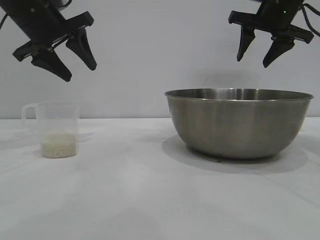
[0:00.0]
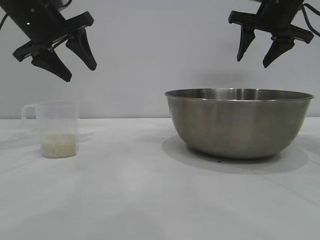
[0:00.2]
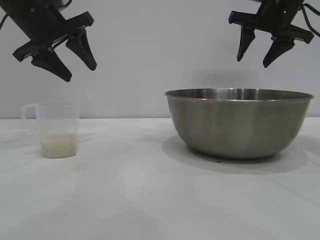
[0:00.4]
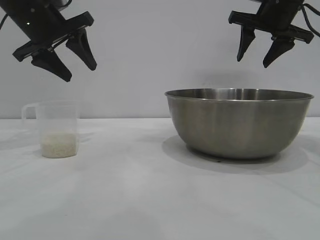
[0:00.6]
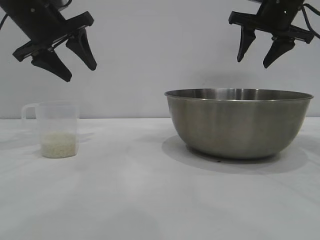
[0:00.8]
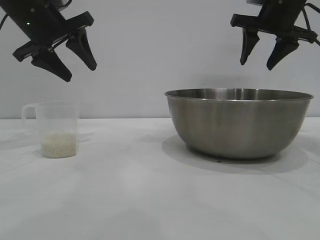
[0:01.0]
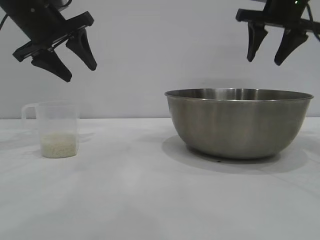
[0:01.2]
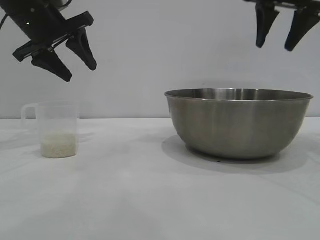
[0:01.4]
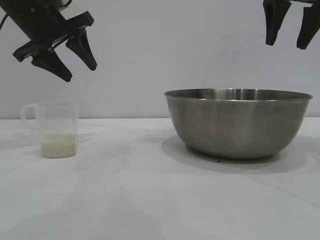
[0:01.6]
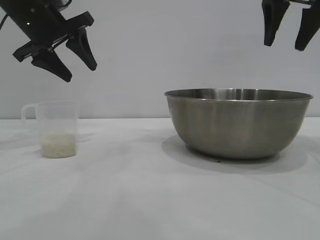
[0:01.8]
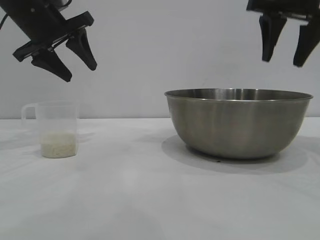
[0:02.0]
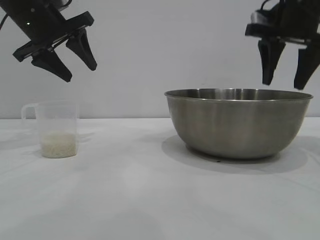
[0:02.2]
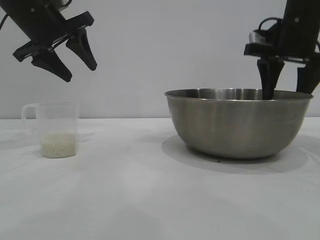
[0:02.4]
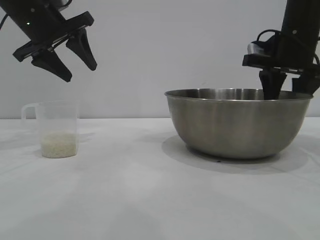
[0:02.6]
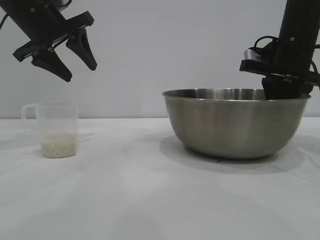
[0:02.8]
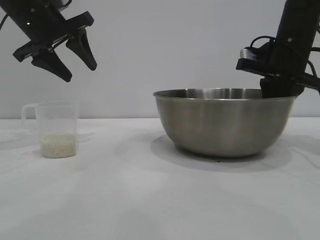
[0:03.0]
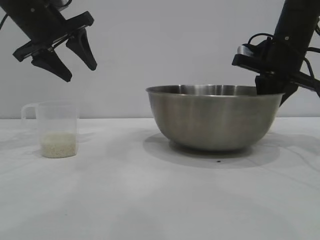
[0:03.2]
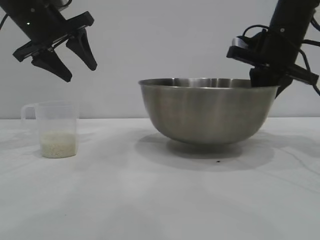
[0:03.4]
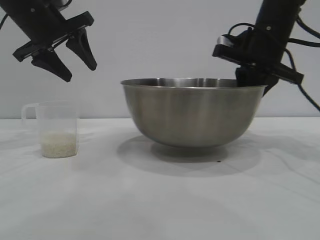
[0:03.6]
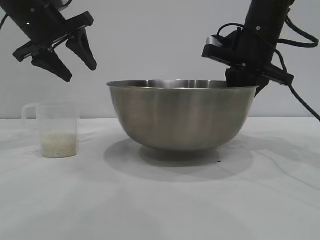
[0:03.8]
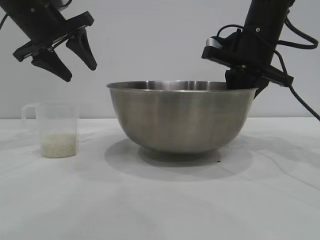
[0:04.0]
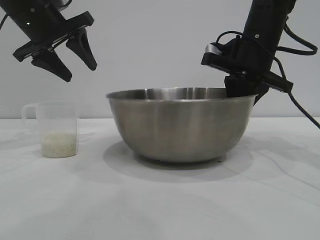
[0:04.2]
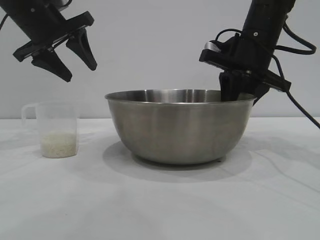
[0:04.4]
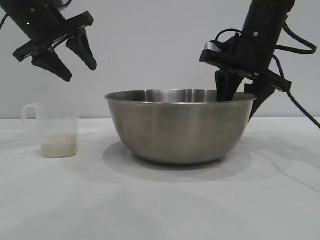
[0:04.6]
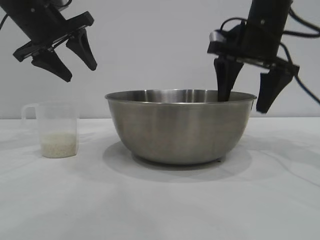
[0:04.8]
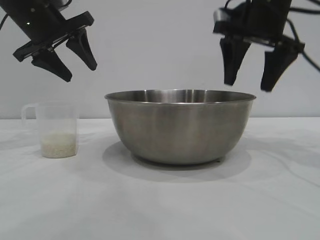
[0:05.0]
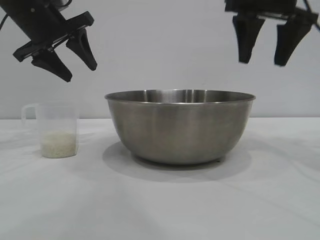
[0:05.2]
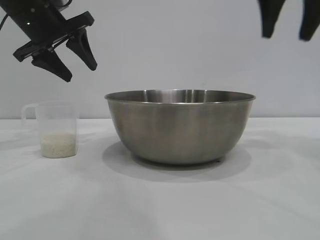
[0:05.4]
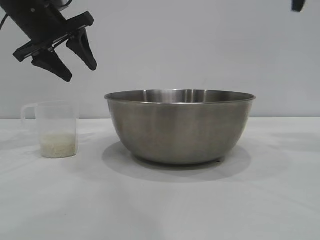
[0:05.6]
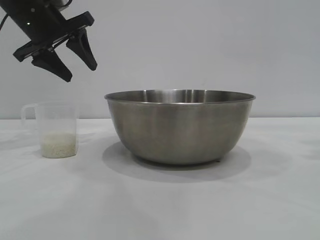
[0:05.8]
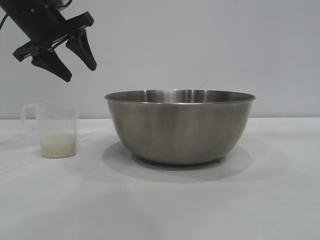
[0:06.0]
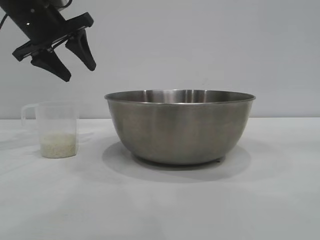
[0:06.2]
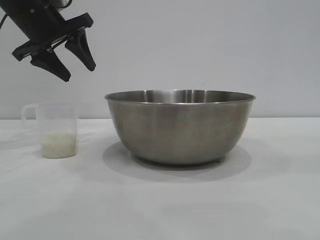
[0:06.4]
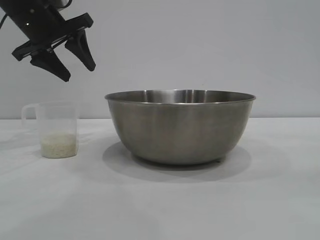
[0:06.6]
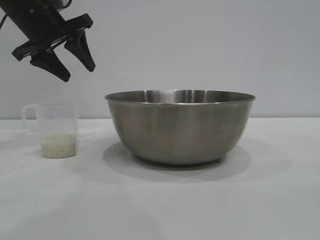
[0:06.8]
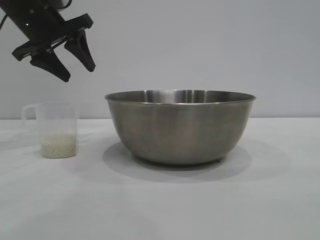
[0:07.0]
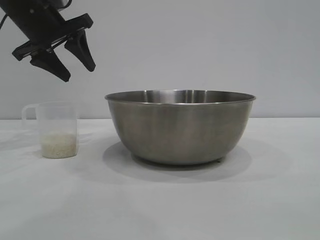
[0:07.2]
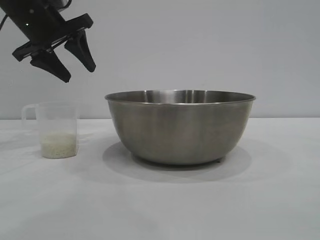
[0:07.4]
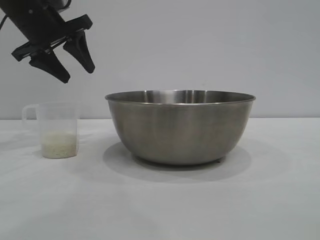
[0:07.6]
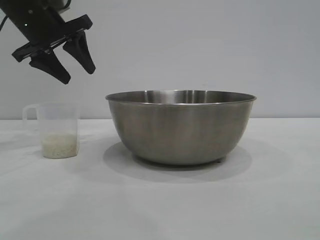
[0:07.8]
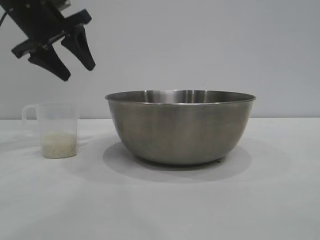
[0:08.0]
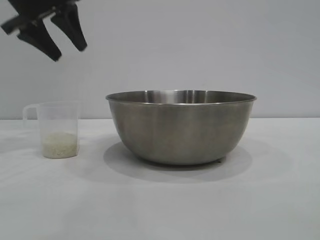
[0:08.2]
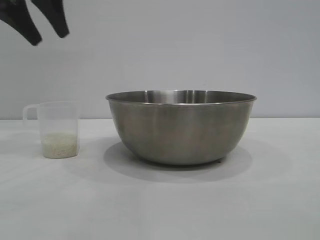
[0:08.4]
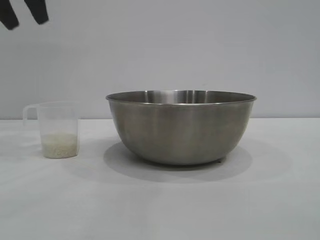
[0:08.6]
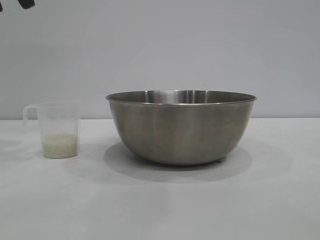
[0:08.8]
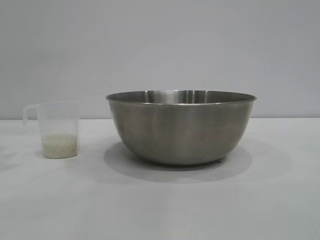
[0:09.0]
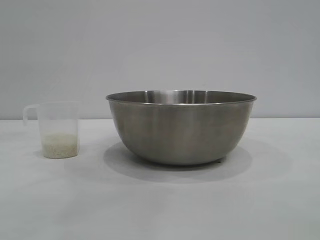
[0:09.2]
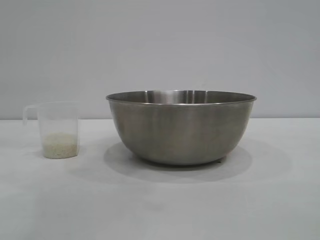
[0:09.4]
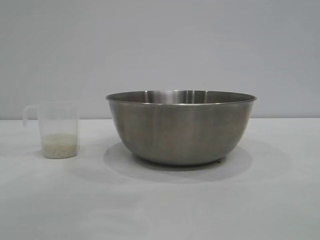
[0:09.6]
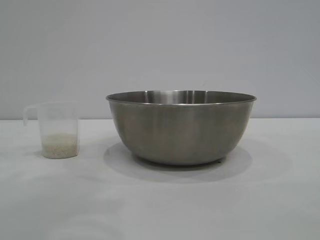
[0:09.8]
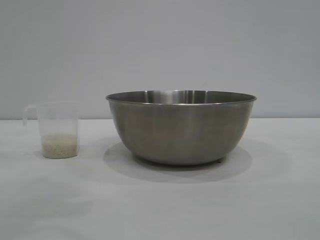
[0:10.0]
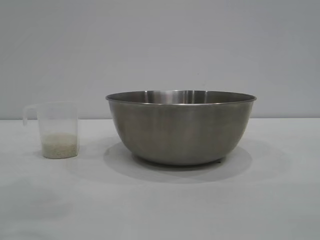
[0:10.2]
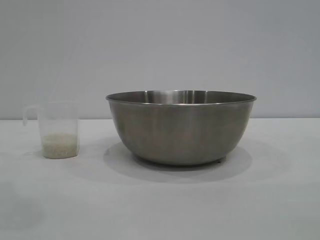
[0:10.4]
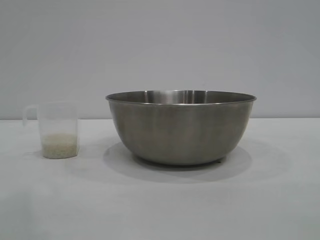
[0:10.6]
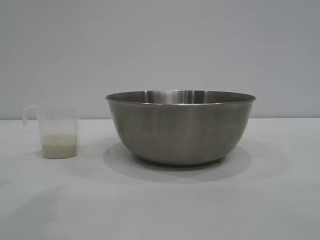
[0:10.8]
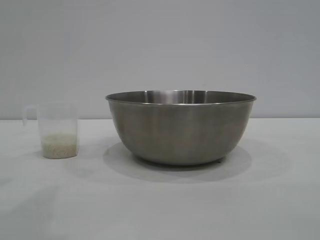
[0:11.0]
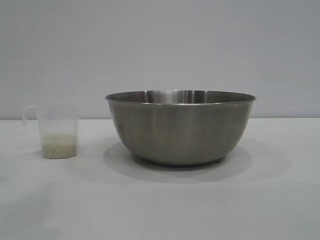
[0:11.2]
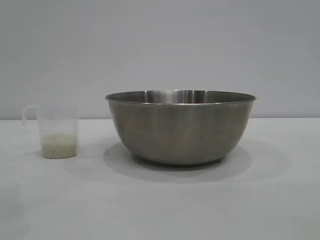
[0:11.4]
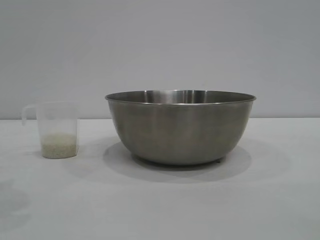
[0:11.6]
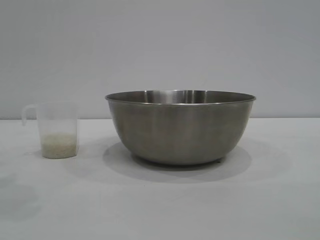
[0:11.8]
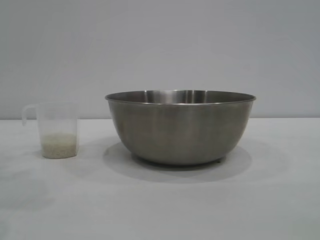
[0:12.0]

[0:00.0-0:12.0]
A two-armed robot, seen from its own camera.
Task of the whole recording: the right gripper grasp the rice container and place it in the center of the table, the left gripper grasp the rice scoop and pour the rice into the rice container.
Step, 0:00.0 to 0:03.4: Pick up the bowl with the right gripper.
Step, 0:03.6 to 0:05.4: Place the bowl in the center of view with the right gripper.

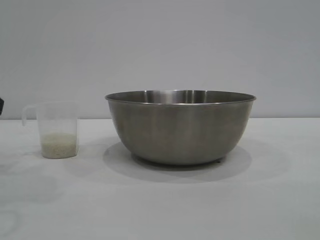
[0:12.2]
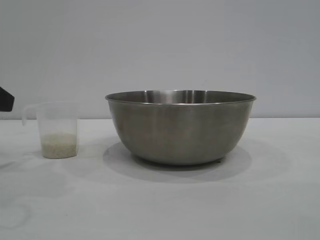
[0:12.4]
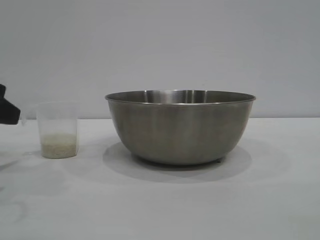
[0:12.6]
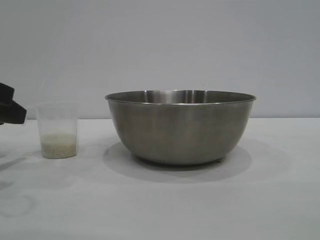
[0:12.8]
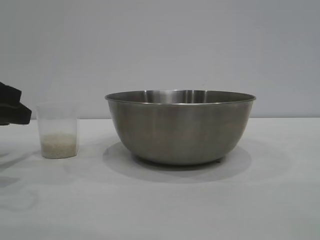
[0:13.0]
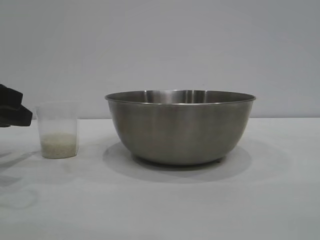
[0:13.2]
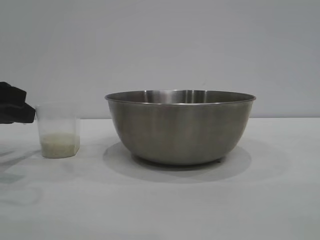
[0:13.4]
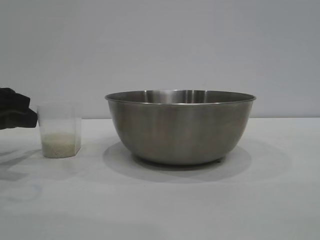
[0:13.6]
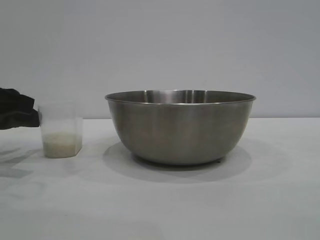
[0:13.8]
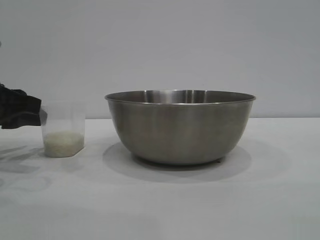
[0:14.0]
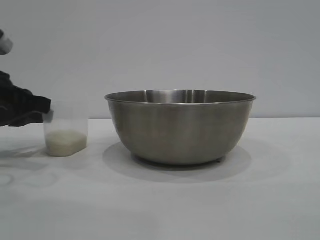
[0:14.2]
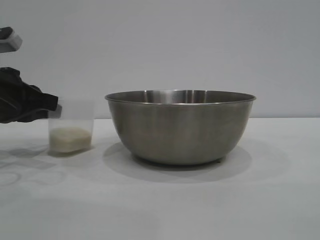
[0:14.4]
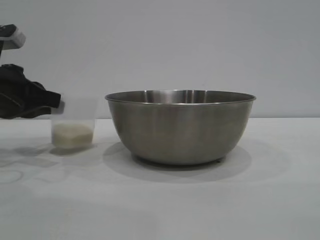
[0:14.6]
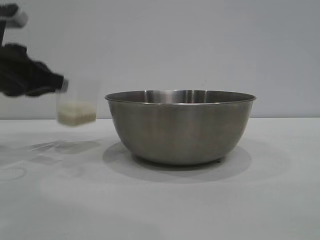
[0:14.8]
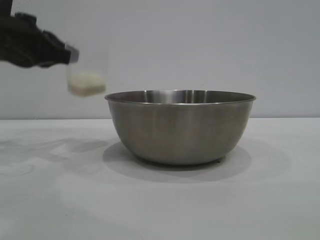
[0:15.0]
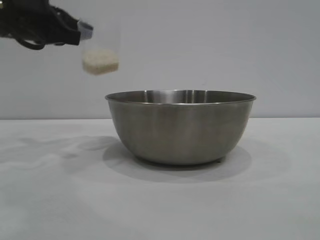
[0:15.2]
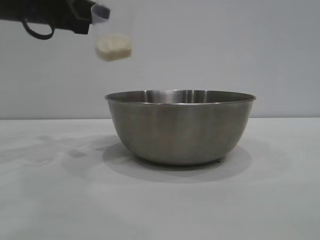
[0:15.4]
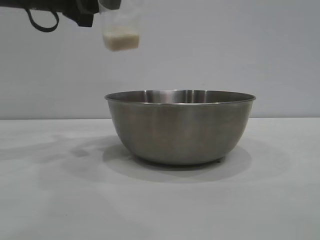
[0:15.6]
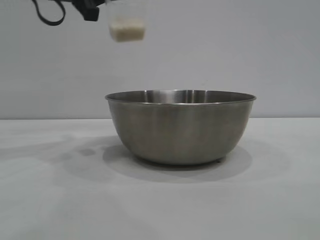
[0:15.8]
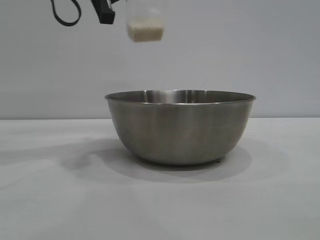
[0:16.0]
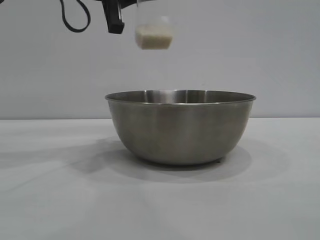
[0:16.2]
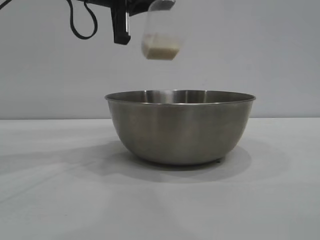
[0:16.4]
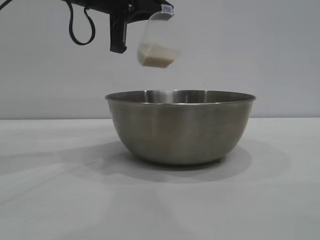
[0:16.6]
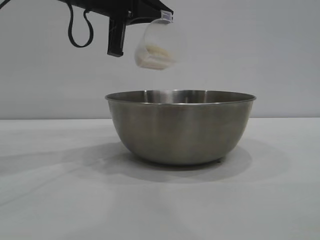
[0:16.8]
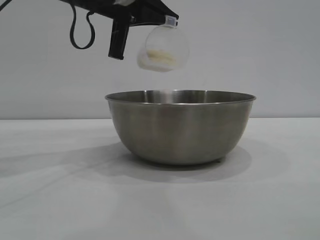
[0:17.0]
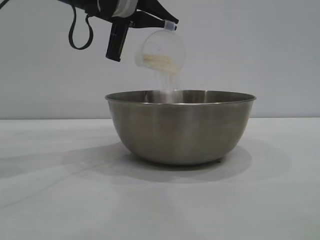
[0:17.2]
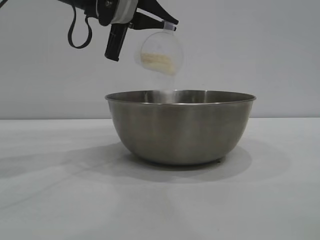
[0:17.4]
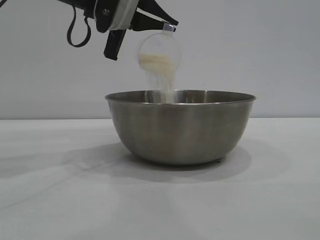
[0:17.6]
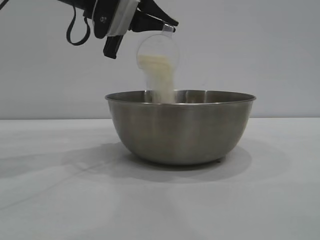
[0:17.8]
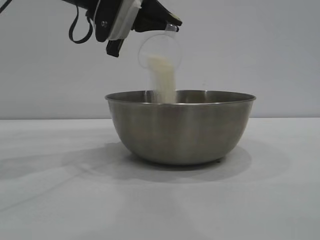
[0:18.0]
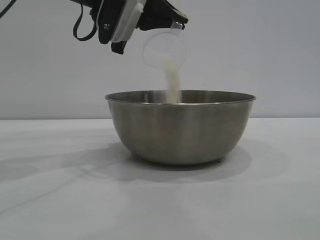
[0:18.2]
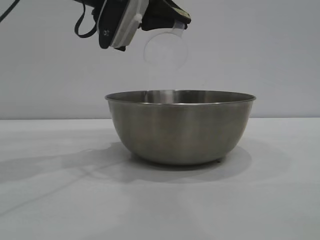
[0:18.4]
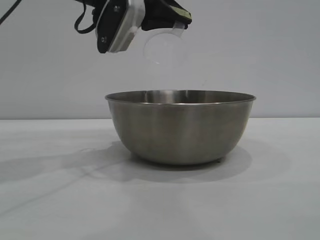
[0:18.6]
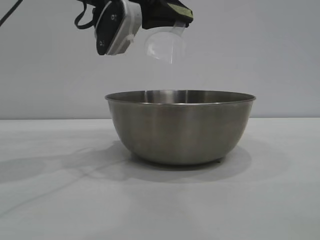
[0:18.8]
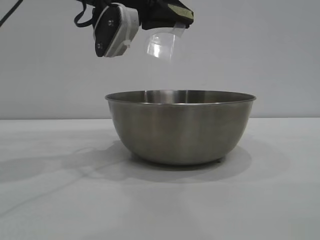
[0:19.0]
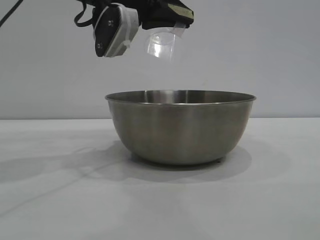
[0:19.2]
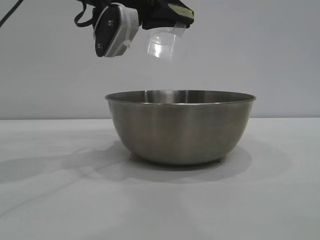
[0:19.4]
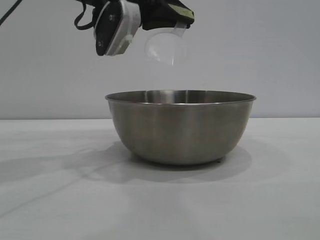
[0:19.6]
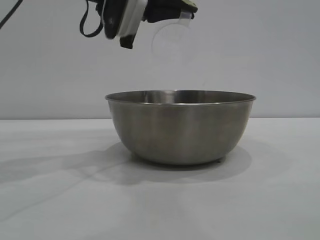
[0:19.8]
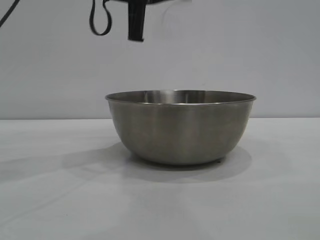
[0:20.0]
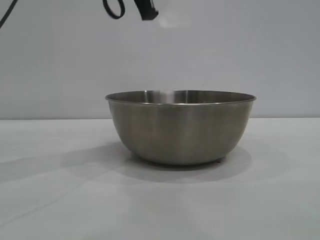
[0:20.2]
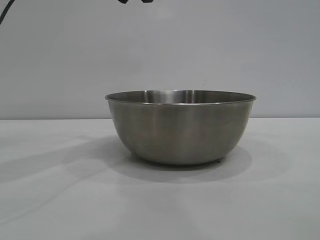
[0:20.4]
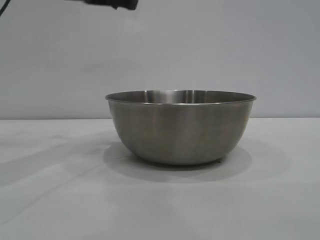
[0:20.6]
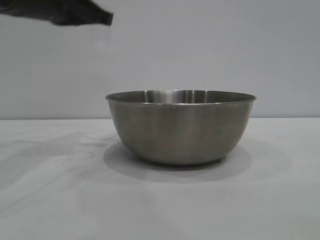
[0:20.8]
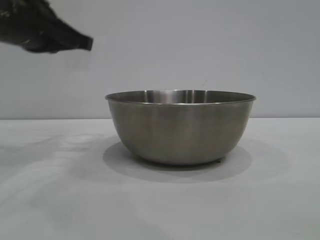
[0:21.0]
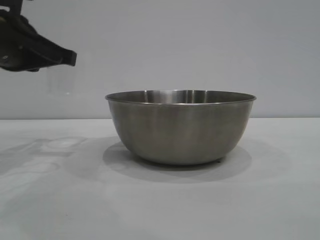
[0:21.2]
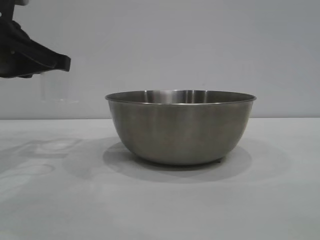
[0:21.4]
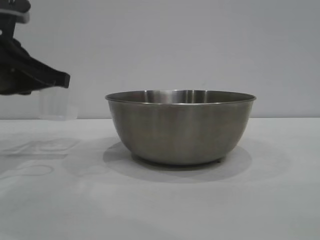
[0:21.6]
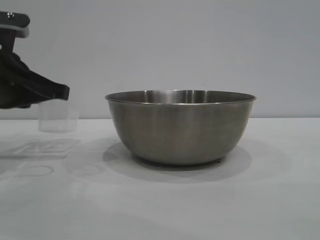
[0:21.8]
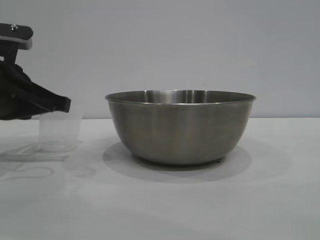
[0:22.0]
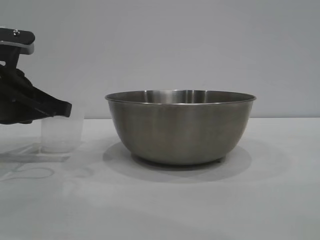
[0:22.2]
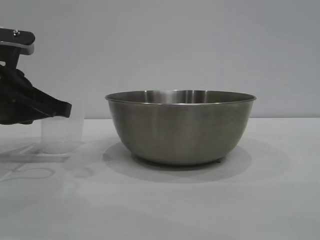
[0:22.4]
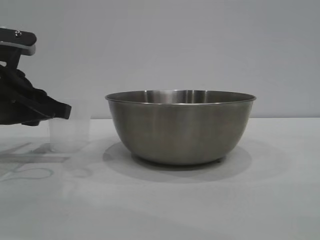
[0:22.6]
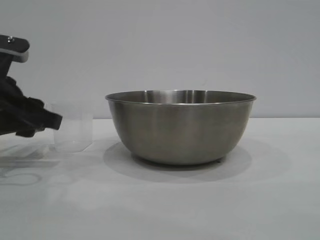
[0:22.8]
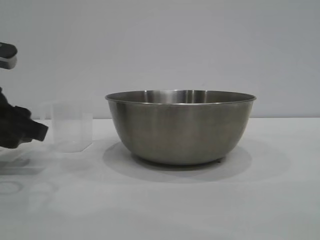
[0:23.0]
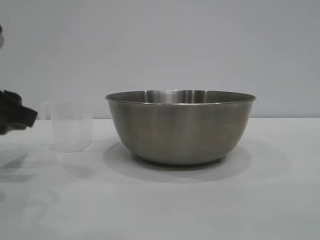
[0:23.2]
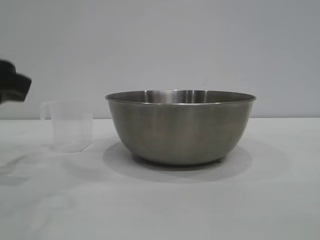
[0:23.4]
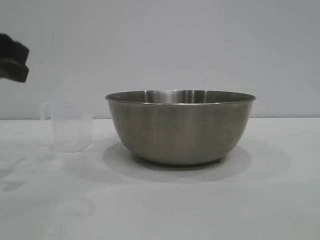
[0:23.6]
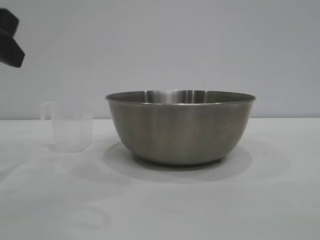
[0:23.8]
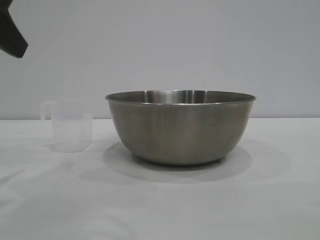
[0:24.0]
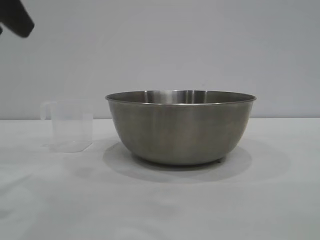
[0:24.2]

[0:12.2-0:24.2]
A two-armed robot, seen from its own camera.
Task of the whole recording: the right gripper grasp the rice container and place it in the center of the table, the left gripper grasp the rice scoop and pour the rice into the rice container.
Step, 0:12.2 to 0:14.6: Pick up the cup with rice in it with the left gripper.
Step, 0:15.0 to 0:19.6: Pour the rice from the cup into the bowl with the left gripper.
Step, 0:20.0 to 0:23.0: Place the cup on the table with the left gripper.
